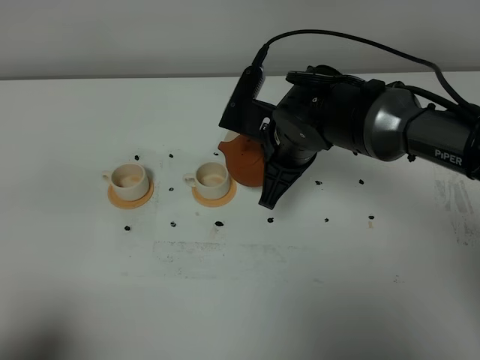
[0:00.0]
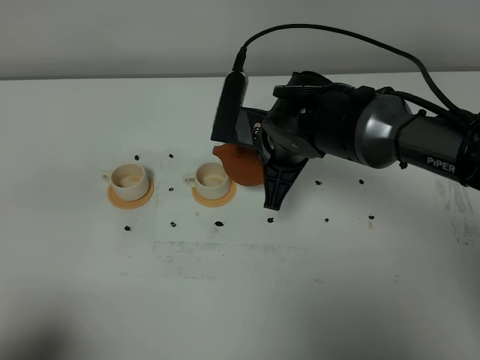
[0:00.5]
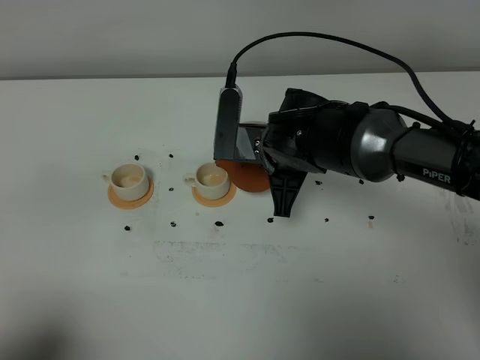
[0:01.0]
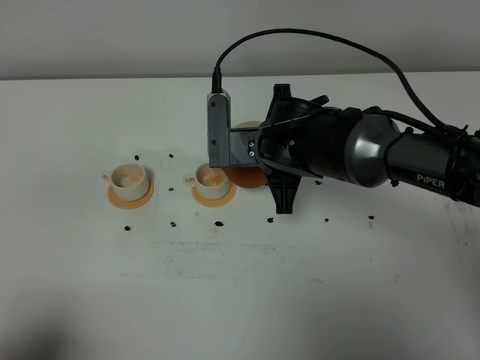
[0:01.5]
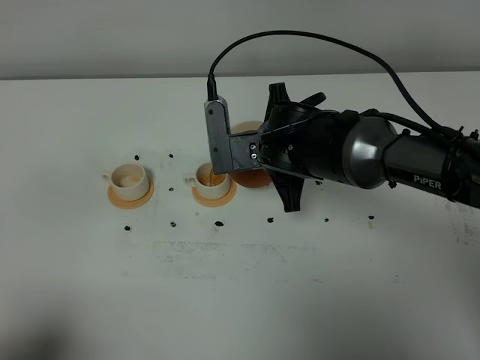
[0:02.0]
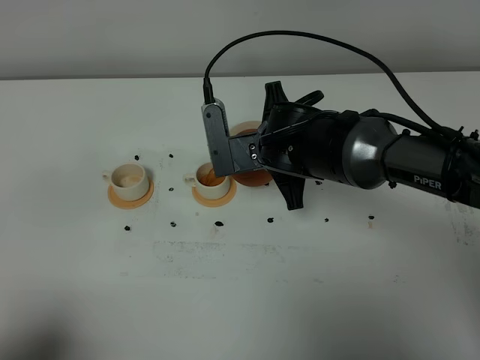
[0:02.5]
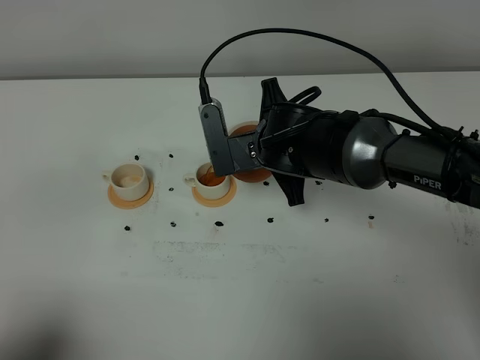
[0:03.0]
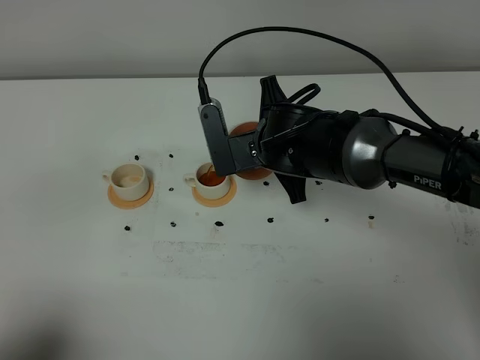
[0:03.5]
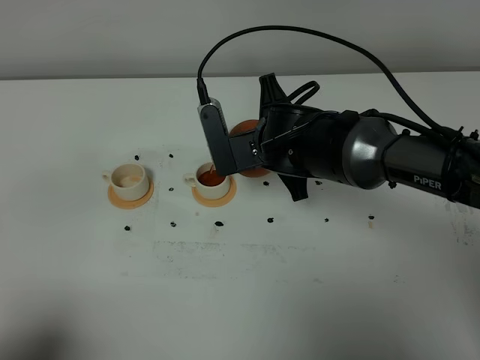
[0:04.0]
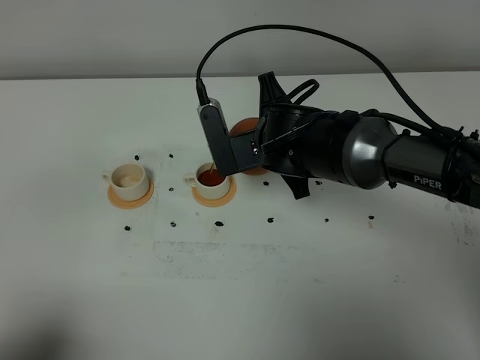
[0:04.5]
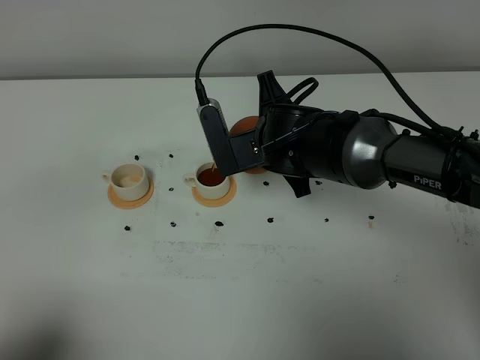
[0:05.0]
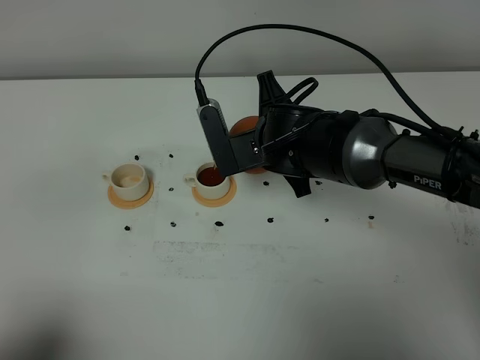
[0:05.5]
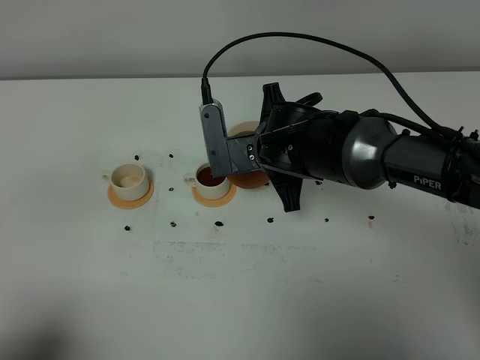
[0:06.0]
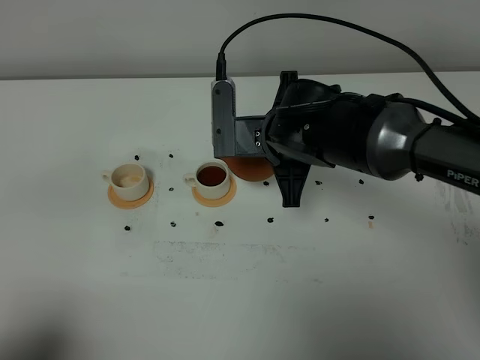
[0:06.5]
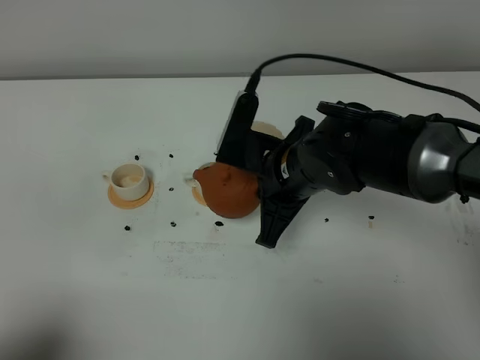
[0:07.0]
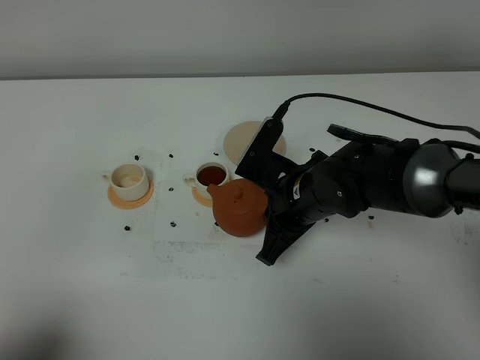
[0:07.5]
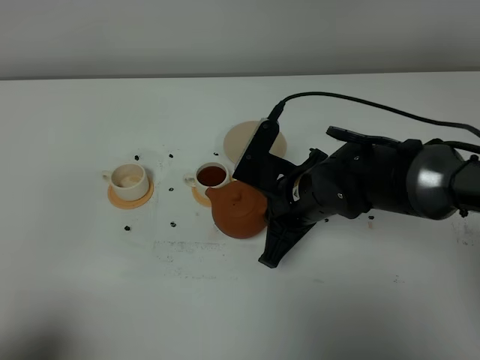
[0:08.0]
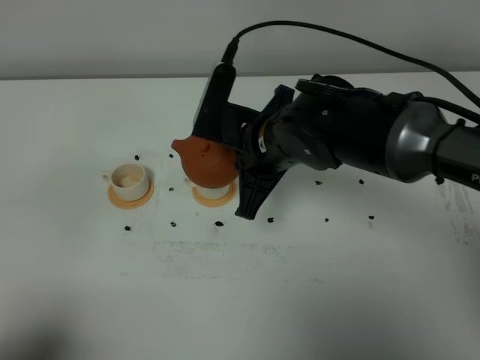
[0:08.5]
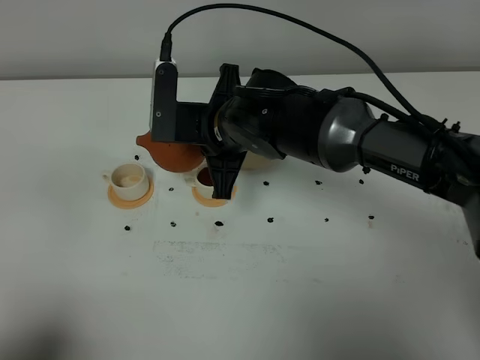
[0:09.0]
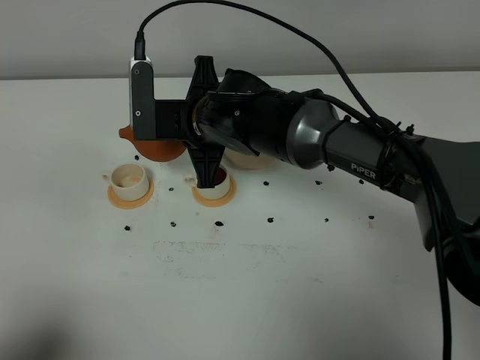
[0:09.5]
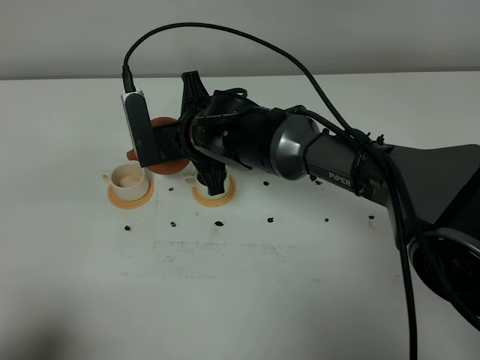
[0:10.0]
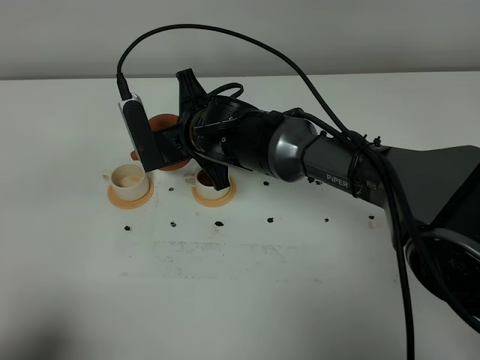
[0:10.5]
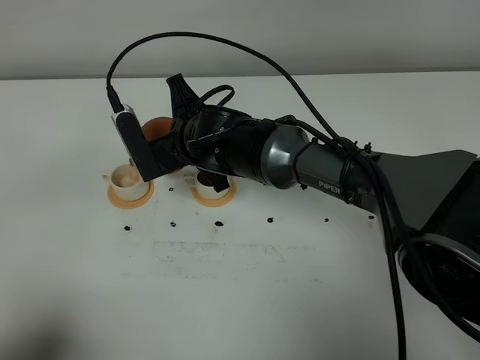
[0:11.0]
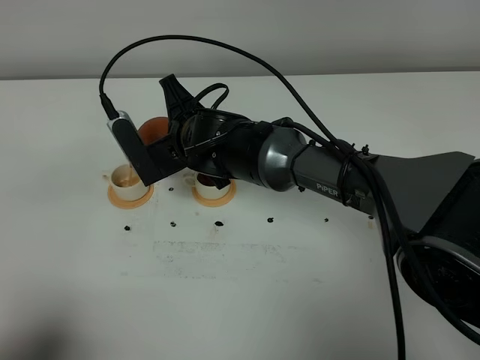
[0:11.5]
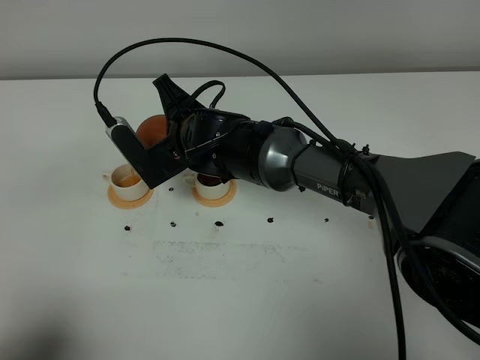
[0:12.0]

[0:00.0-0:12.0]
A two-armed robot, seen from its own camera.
Task of the whole recording: grasp the brown teapot and pour the tea into the two white teacups one by one, put the brown teapot back in its original place.
0:02.0 to 0:06.0: The grippers move only a little.
0:06.0 to 0:08.0: The right gripper is displaced backward by some 5 cm.
0:08.0 to 0:10.0: The right gripper is displaced to the left and forward by approximately 15 cm.

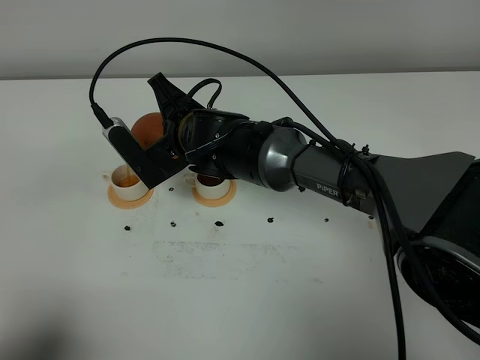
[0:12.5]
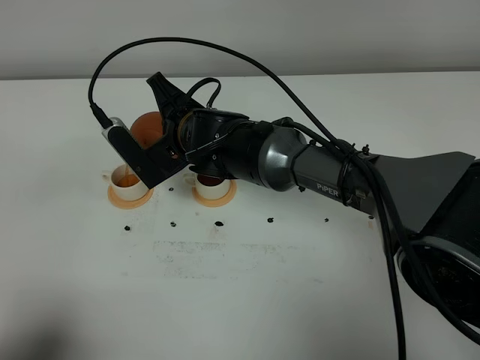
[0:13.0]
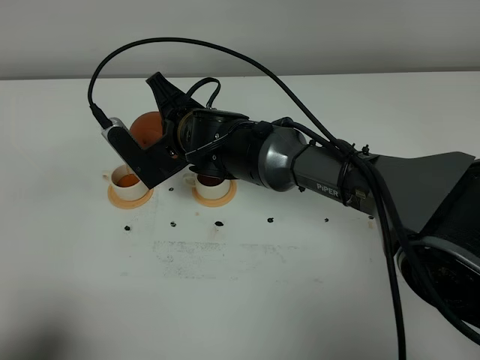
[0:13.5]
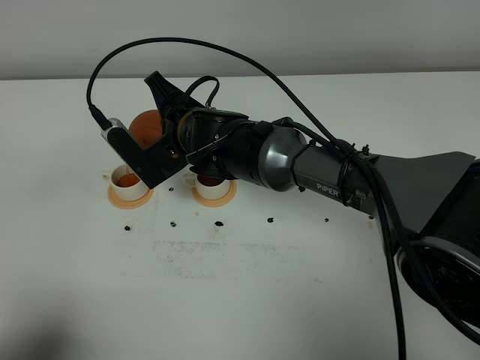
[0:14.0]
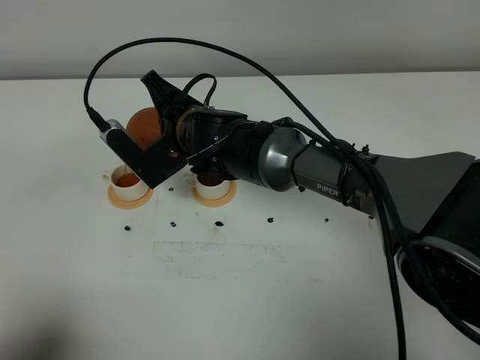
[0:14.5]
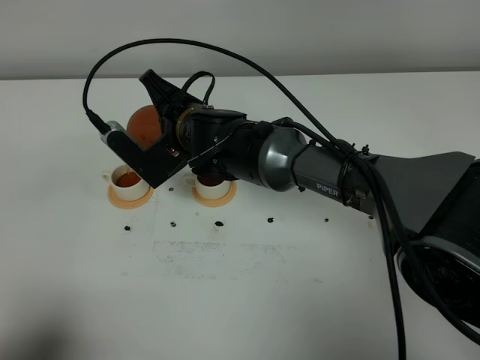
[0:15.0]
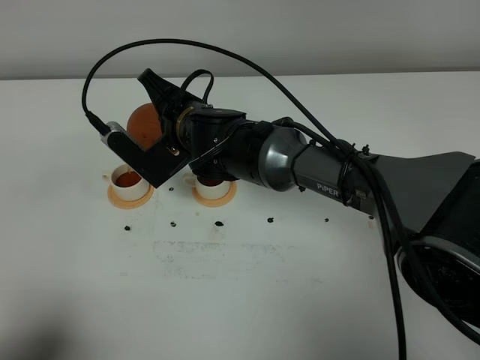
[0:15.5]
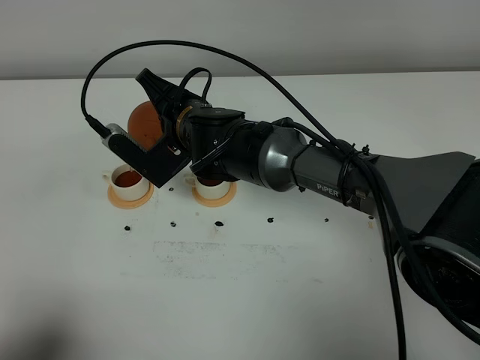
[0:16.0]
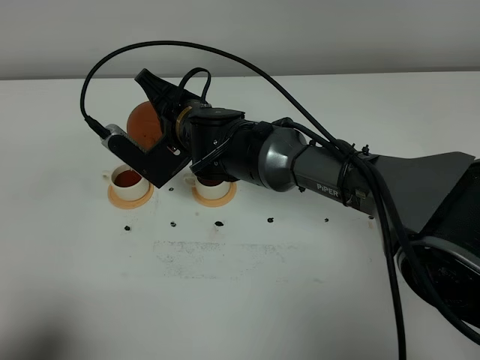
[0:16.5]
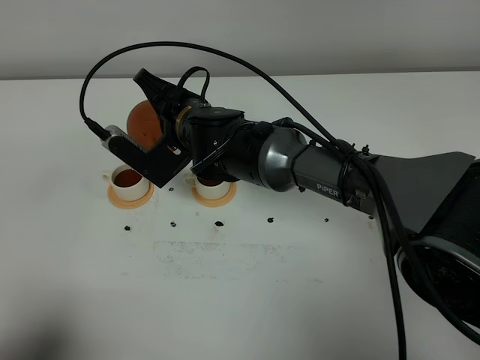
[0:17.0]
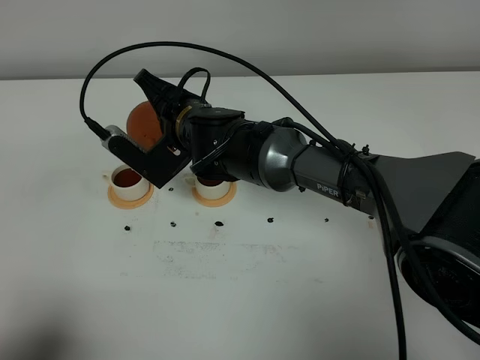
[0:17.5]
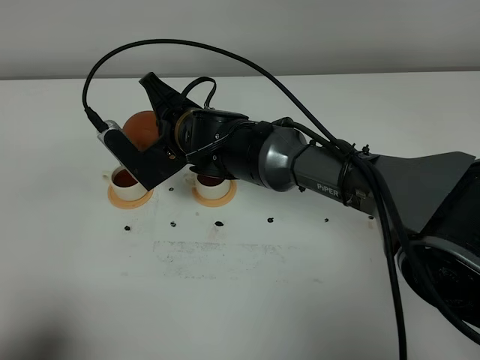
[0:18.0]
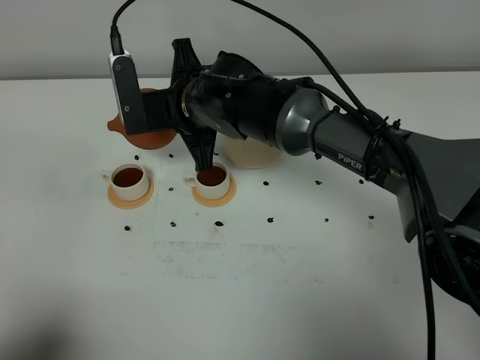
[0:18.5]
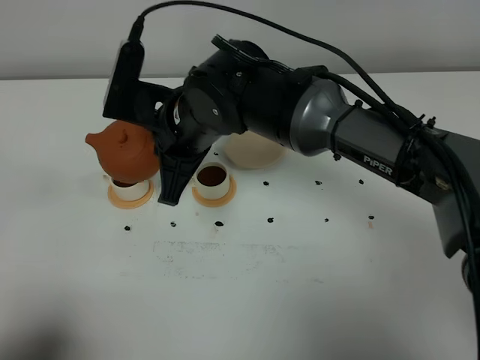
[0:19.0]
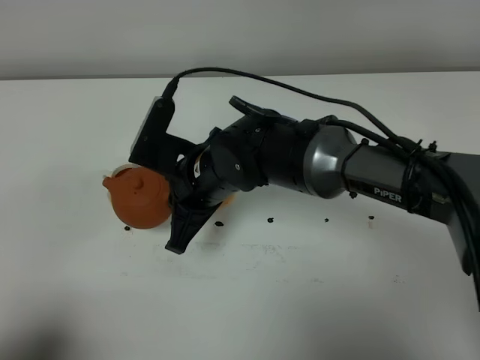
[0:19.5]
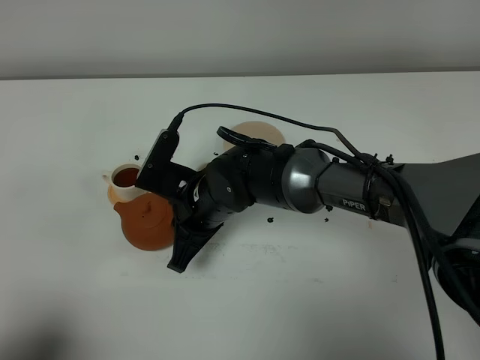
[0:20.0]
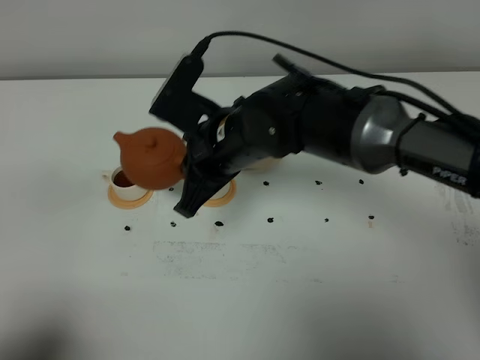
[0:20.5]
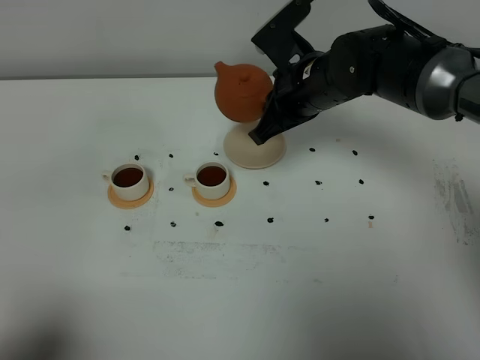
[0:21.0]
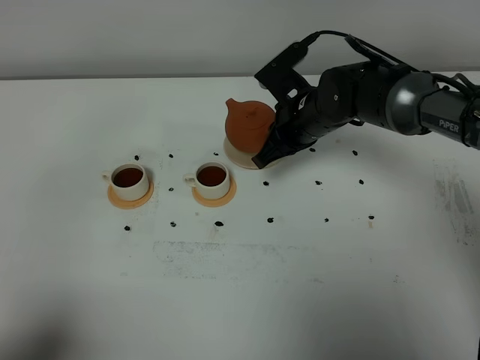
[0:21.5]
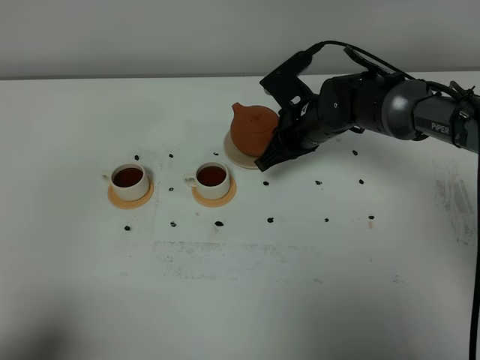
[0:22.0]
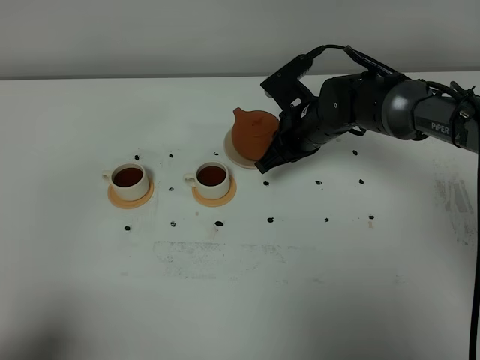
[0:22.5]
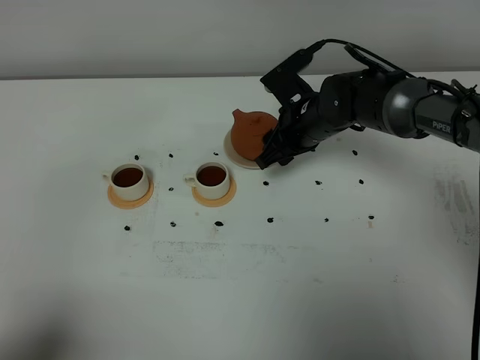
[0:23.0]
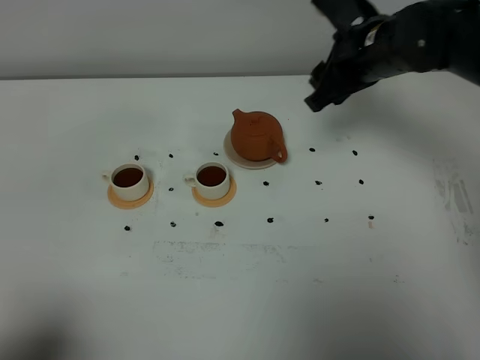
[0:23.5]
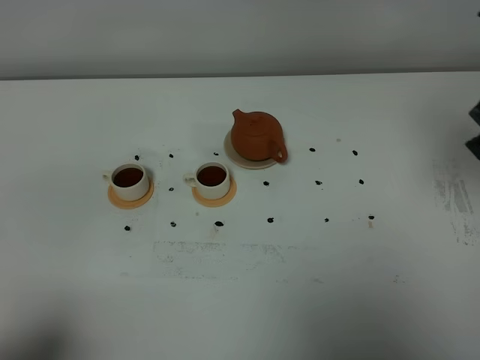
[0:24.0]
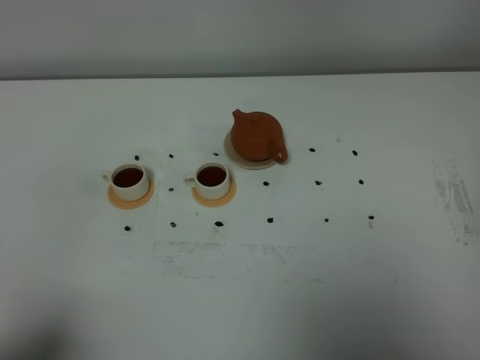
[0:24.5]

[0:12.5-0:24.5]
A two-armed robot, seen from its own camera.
Task of the whole recording: grasp the brown teapot and pour the tea into the two white teacups one by one, put the brown teapot back in its original place.
Step, 0:12.5 to 0:18.0: Pour tea into the teacup with the right gripper.
0:12.5 to 0:16.5: There are only small adjustments of the grippers.
0:18.5 to 0:20.5: The right gripper heads backward, covering about 5 cm, and travels downward and back again, approximately 10 cm each way.
0:20.5 to 0:22.5: The right gripper moves to the right, forward and downward, roughly 15 cm.
0:22.5 to 0:24.5: The right gripper travels backward, upward and to the right by roughly 50 cm, and opens.

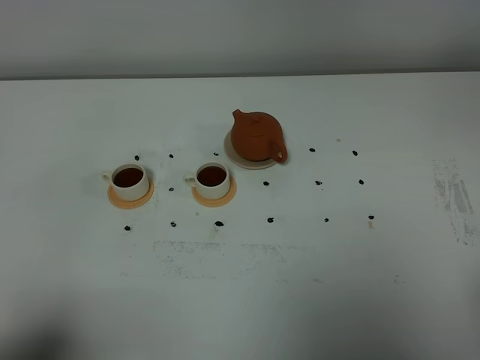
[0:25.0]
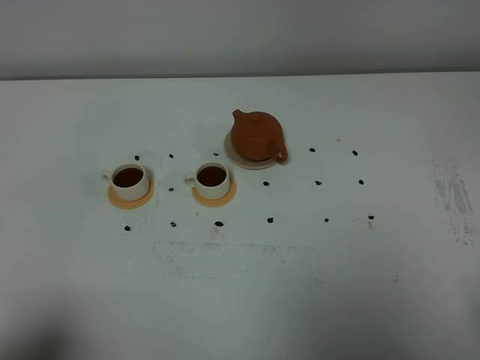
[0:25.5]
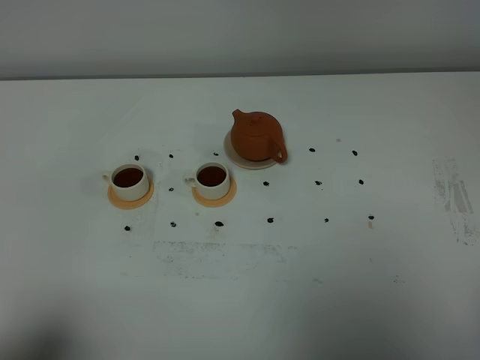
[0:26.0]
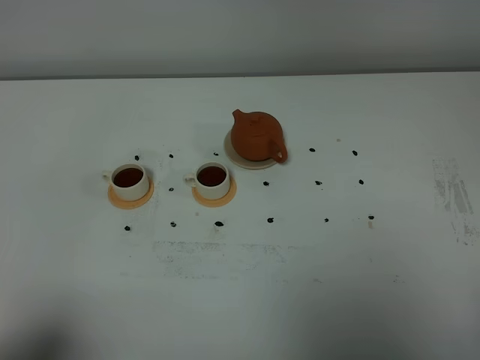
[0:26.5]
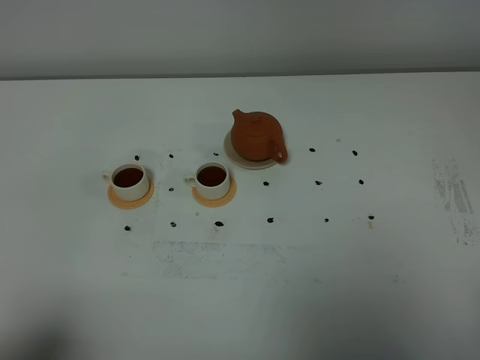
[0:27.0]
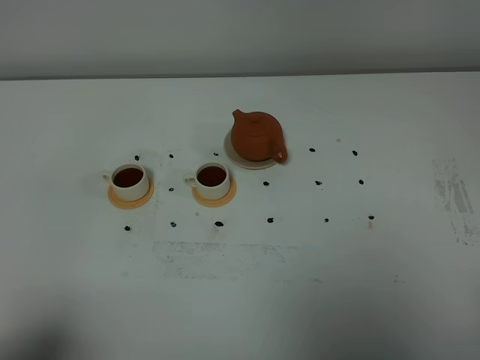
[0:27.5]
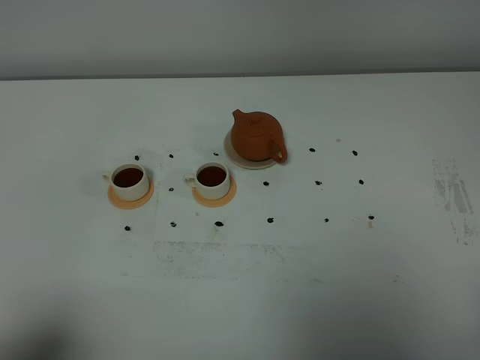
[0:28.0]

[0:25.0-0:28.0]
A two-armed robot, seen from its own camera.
Task of the whole recording: grasp the brown teapot and pour the tea into the two white teacups one by one, put the brown teapot back in its original place.
0:26.5 to 0:28.0: Neither gripper changes place.
